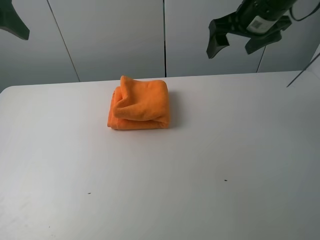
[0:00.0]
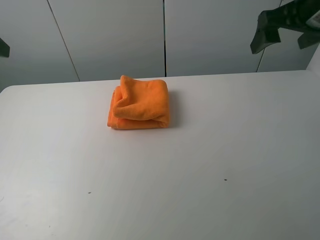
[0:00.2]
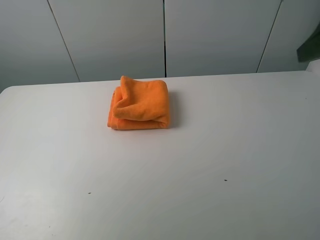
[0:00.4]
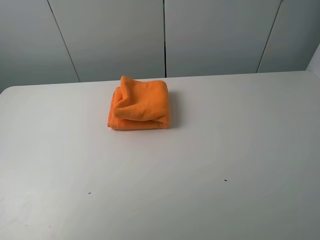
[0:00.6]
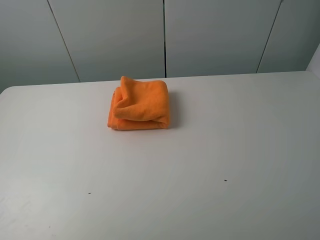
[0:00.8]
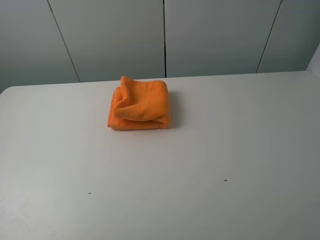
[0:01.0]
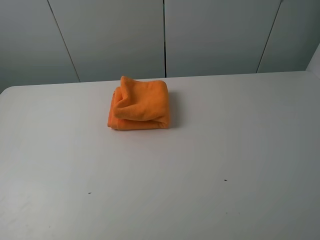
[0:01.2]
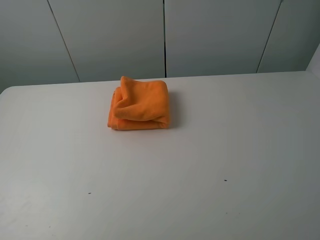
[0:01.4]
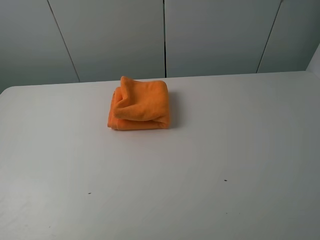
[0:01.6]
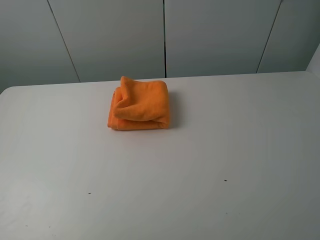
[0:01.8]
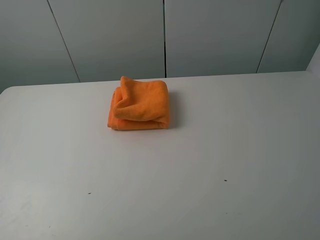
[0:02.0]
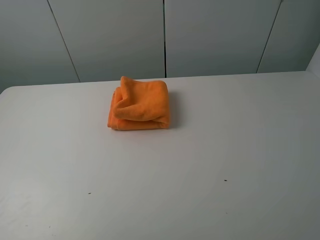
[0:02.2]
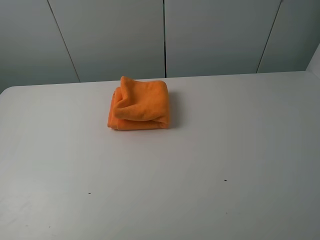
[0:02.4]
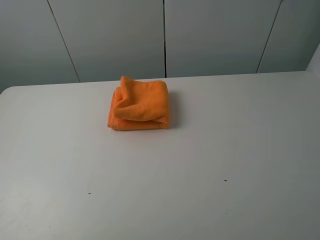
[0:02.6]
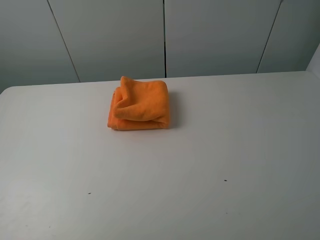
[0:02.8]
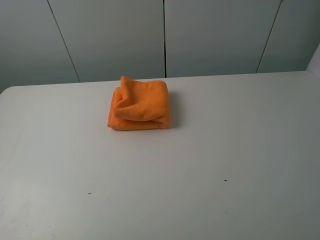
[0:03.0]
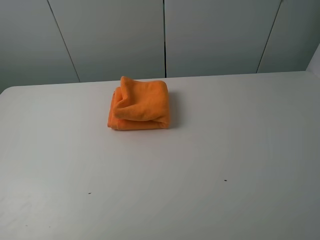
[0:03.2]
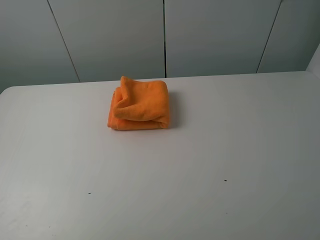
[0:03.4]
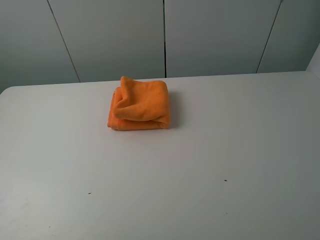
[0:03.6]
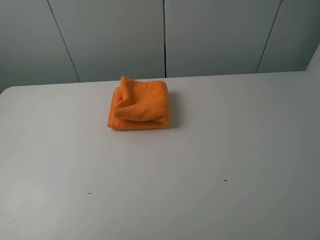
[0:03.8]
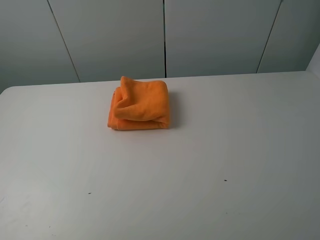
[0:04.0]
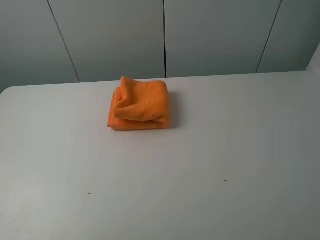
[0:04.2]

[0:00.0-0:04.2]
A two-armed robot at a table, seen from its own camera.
Task of the whole recording: fold the towels on the table.
0:00.0 to 0:01.4: The two grippers go about 35 cm backward.
0:02.8 to 0:04.2: Both grippers stay put.

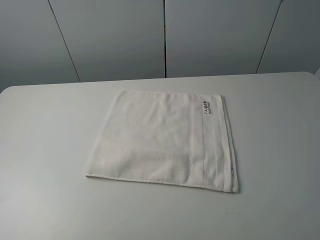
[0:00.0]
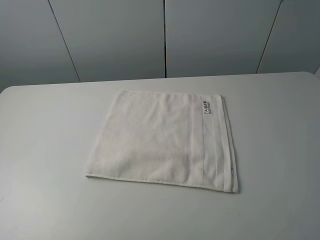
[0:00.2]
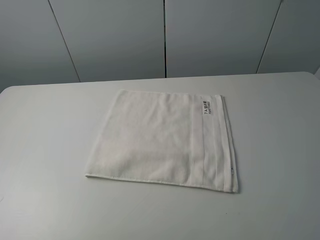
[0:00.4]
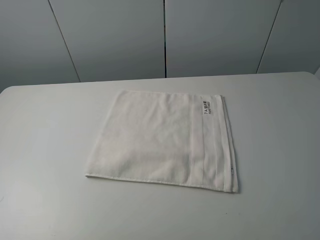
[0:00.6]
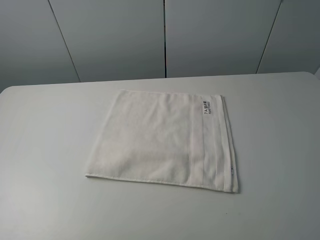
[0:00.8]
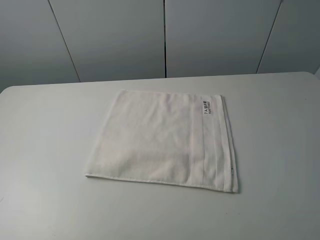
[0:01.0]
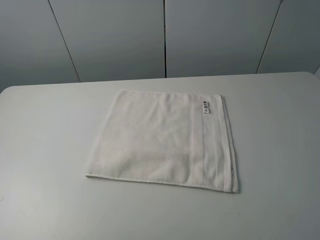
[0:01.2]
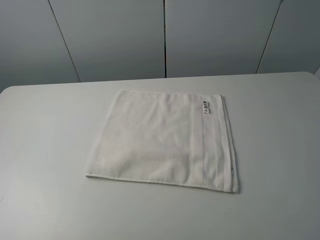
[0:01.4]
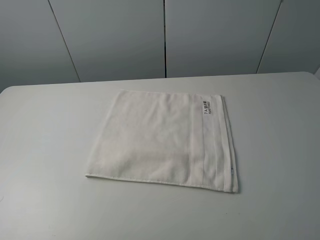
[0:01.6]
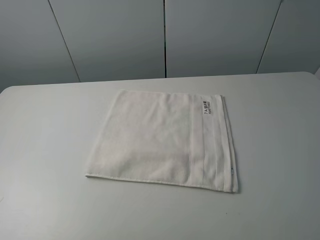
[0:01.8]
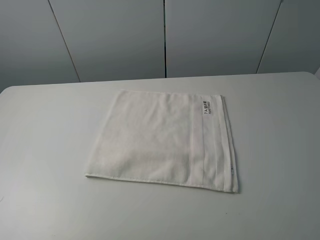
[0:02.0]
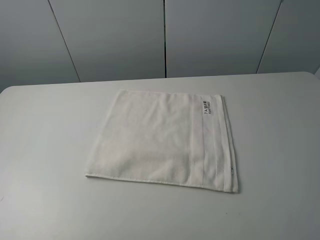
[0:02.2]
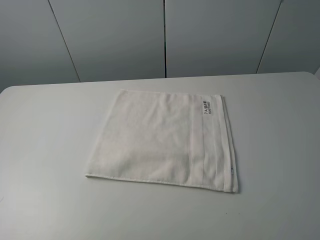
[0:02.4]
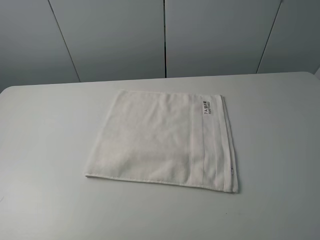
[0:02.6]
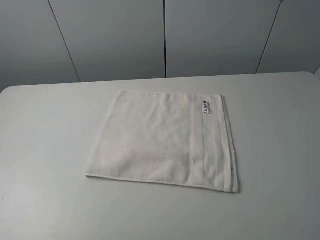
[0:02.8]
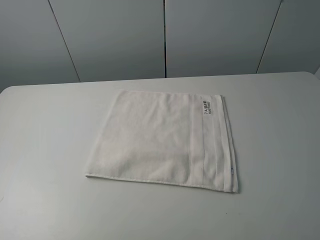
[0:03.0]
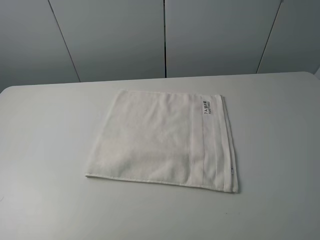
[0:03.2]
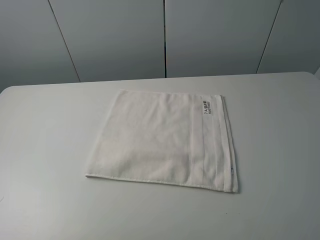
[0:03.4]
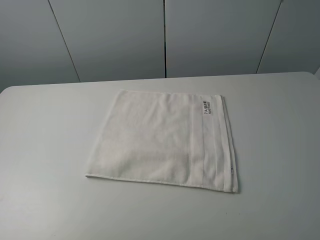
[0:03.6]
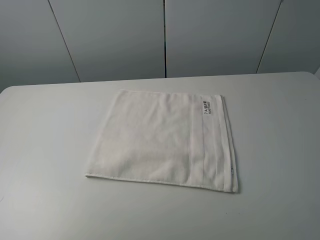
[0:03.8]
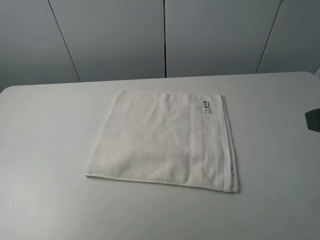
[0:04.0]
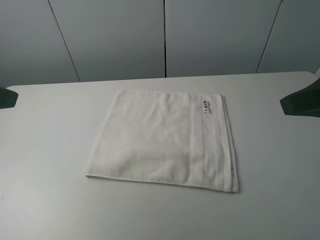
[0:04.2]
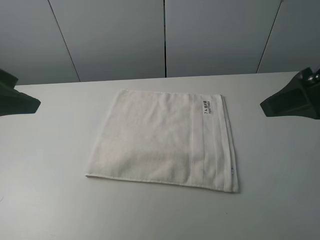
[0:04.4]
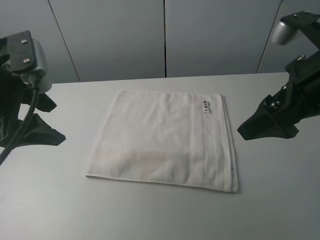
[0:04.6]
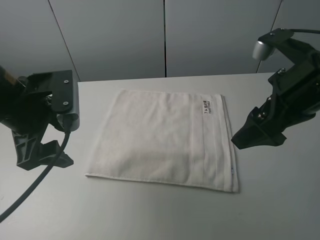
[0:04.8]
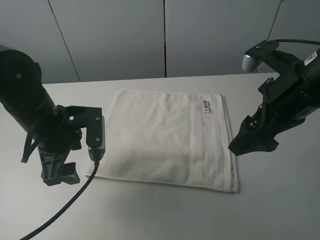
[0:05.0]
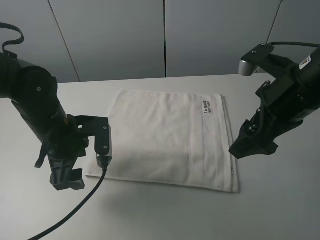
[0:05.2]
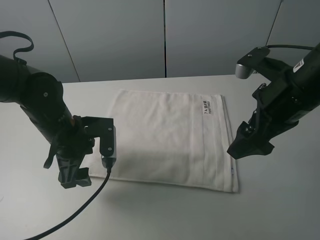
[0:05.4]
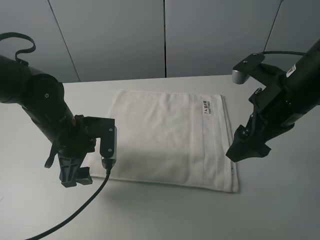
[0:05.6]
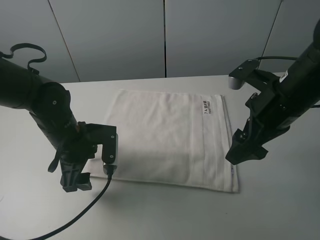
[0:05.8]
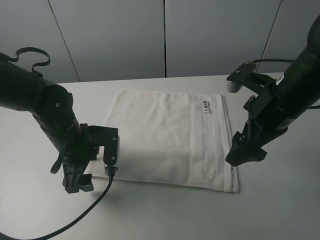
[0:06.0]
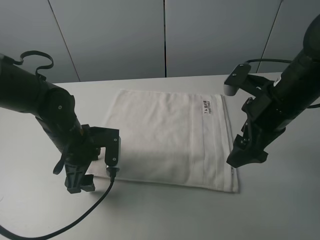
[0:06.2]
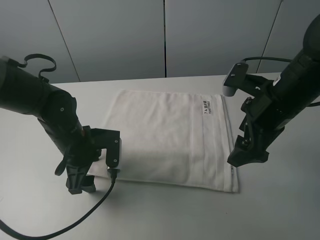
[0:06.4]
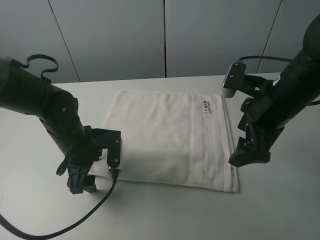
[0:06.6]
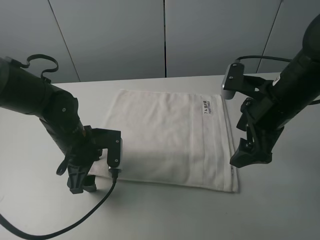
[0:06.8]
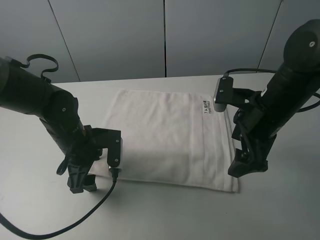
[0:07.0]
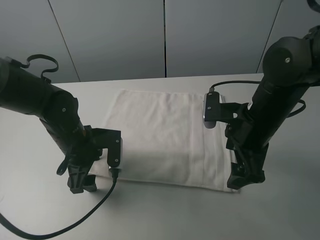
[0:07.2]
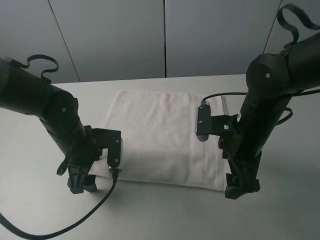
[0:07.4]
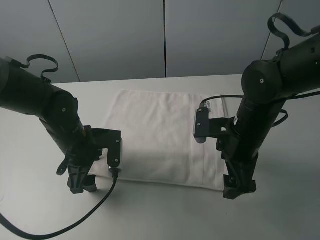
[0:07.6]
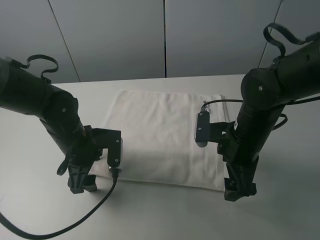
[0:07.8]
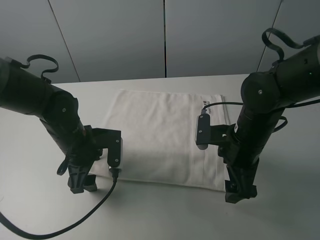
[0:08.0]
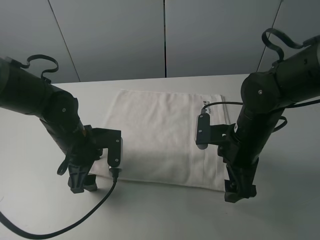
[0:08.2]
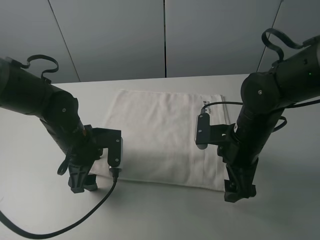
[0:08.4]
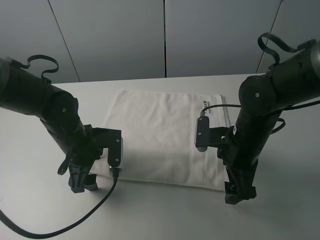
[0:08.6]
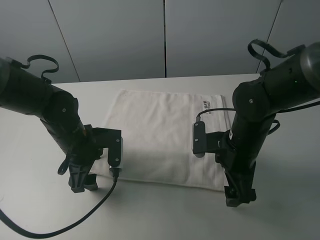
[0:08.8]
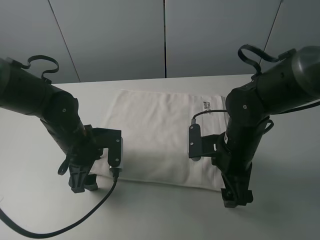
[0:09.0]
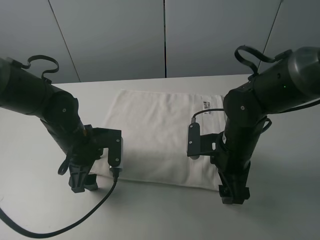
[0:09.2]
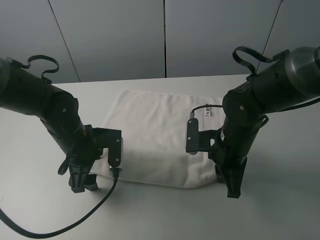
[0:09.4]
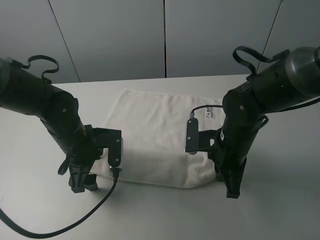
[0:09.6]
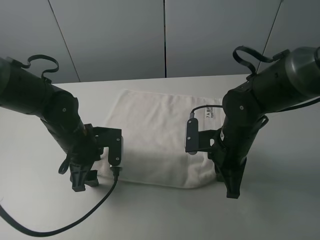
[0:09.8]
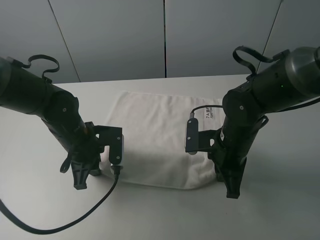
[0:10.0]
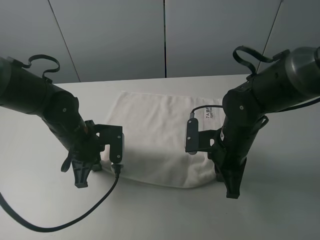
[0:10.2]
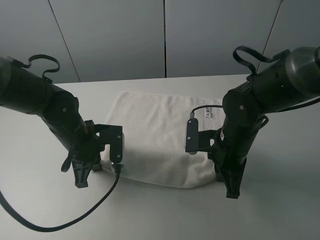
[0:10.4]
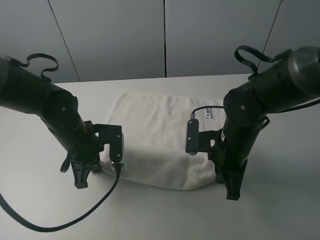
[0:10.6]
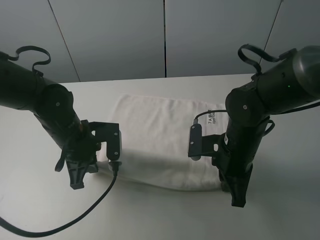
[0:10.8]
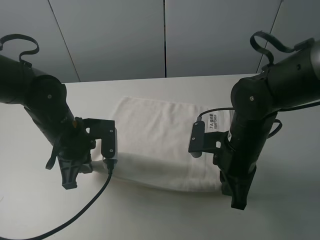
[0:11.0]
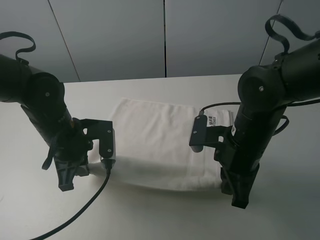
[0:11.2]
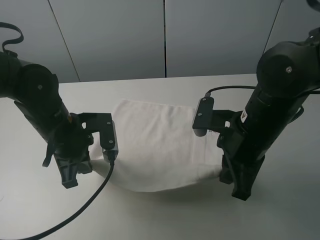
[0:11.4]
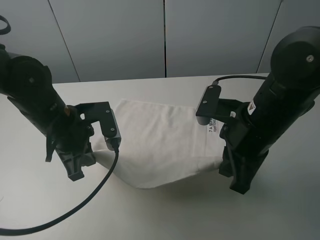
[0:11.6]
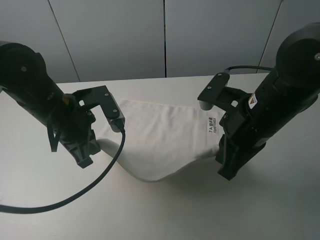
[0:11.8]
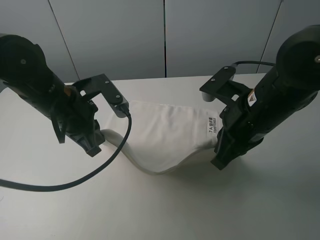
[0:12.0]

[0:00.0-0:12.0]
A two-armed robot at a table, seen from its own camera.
Task of the whole recording: fold the towels on the table.
Step, 0:00.0 to 0:09.6: Grasp the white towel with the right gripper.
Step, 0:09.8 to 0:10.2: Grasp the white towel with the left gripper.
0:00.0 to 0:03.0: Both grippers stay about where they are.
0:03.0 to 0:04.4: The grippers both shift forward by some 20 cm.
0:04.4 to 0:06.0: The left gripper shifts some 20 cm downward and to the right. The right gripper travels downward and forward by approximately 10 cm.
0:06.0 to 0:07.6: The right gripper goes about 5 cm downward.
0:07.6 to 0:09.0: The grippers stay close to where they were, moving slightly.
0:09.0 to 0:10.4: The right gripper closes. Meanwhile the left gripper closes up.
0:10.4 to 0:12.0: The two grippers go some 10 cm upward.

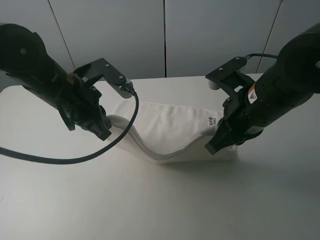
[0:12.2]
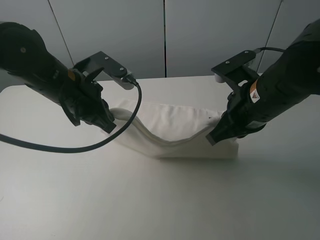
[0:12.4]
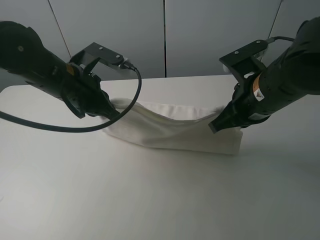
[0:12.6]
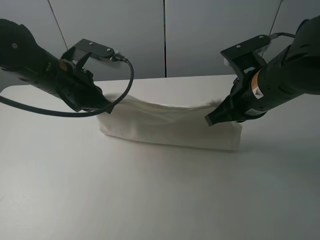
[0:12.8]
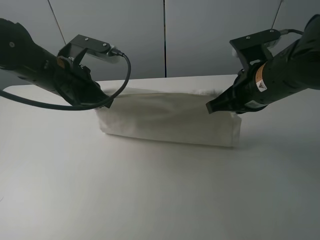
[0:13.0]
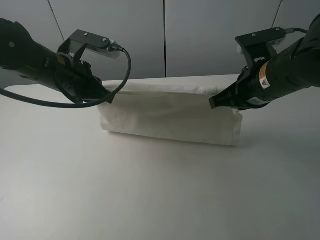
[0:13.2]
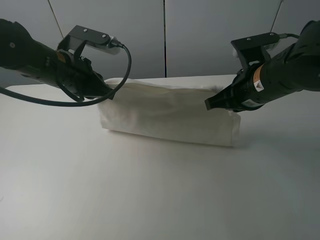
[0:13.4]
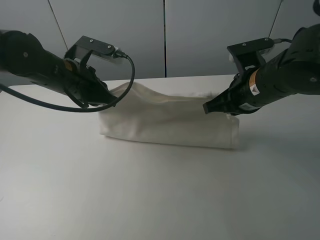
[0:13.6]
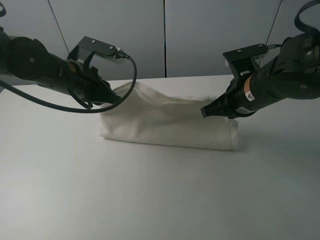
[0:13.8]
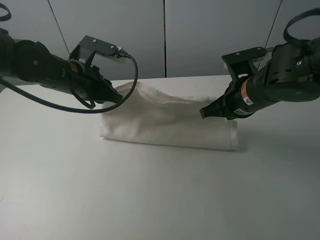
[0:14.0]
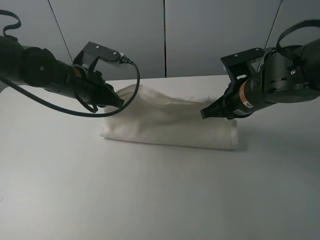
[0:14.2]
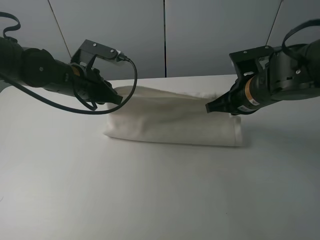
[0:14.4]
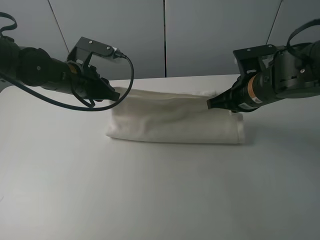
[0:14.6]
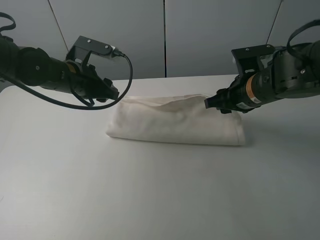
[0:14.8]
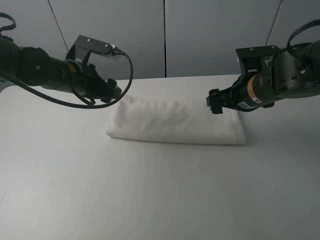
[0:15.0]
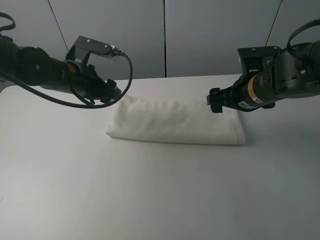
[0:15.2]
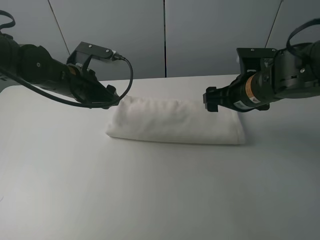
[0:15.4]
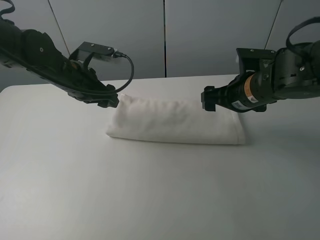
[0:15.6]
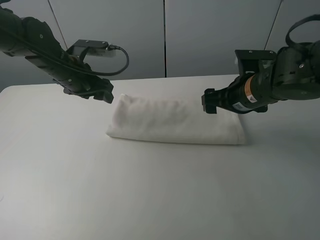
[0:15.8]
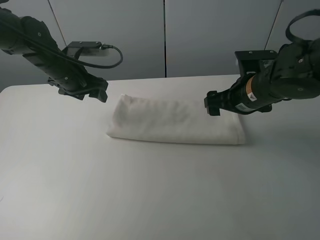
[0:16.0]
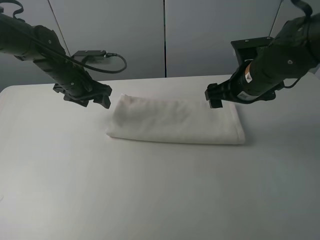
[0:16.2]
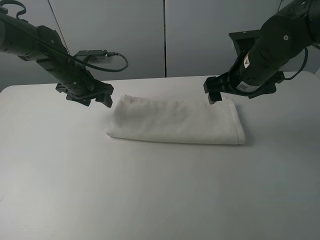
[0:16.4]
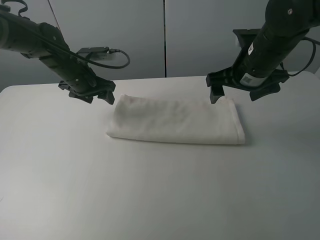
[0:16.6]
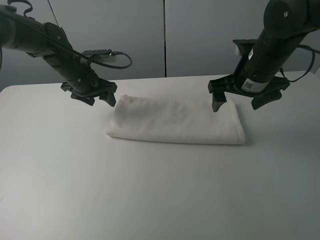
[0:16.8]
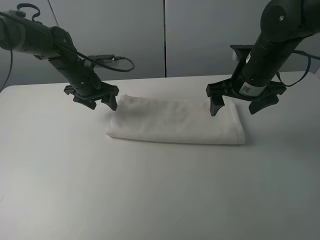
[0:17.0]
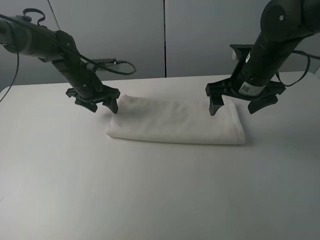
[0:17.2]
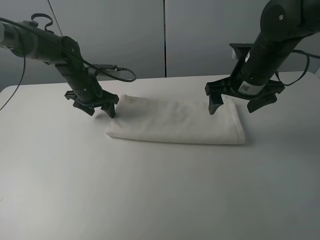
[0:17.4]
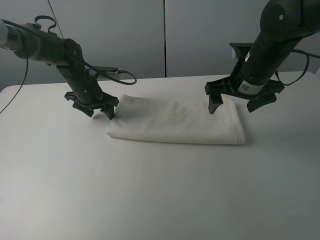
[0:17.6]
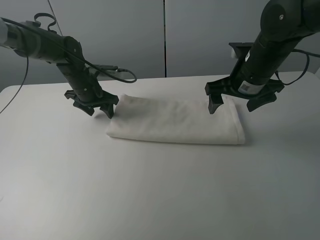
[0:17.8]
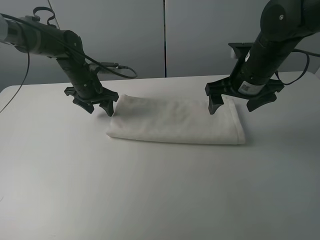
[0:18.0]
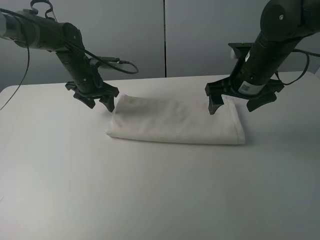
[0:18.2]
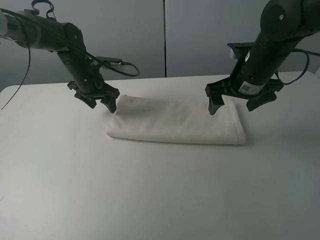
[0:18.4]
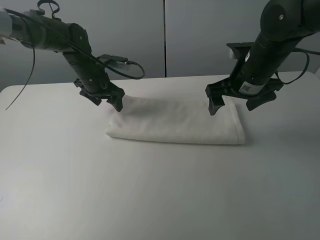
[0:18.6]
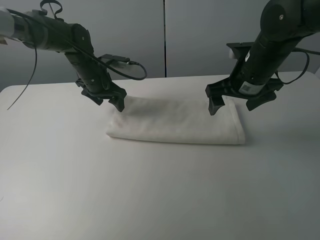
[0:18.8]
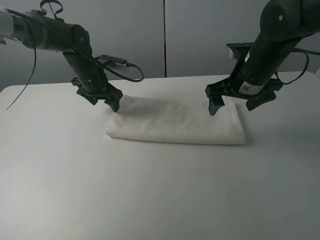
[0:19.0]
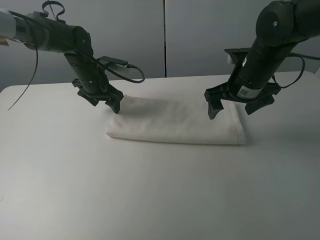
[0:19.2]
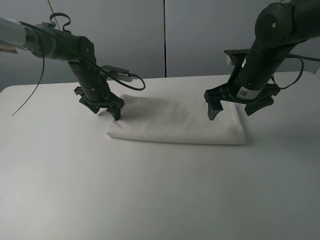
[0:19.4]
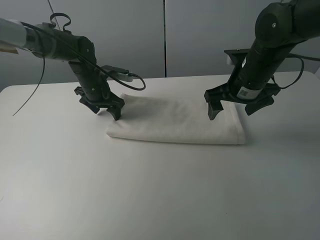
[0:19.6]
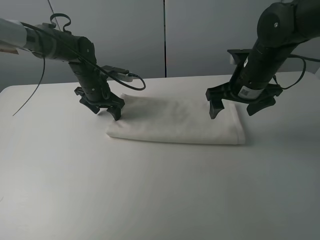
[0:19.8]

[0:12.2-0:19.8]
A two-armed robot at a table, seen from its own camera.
Task of the whole recording: fold the towels on the table.
Step, 0:12.2 to 0:15.0: Fold the white towel upwards with the right gripper.
Step, 0:15.2 to 0:19.6: Press on the white towel with the left gripper.
0:12.2 to 0:13.8: The two grippers go roughly 5 cm forward.
0:13.8 to 0:15.2: The right gripper opens. Meanwhile the left gripper opens its fingers.
0:15.2 to 0:16.8: The left gripper is displaced forward by approximately 10 cm.
0:16.8 to 0:19.8: The grippers move only a little.
